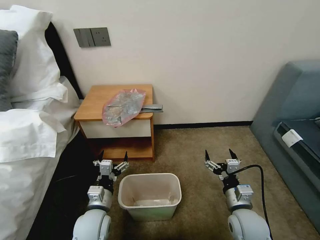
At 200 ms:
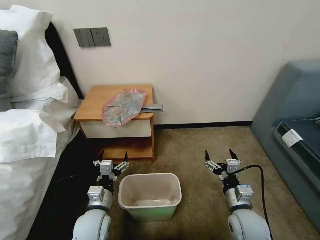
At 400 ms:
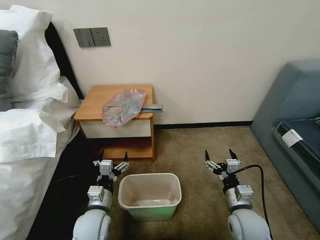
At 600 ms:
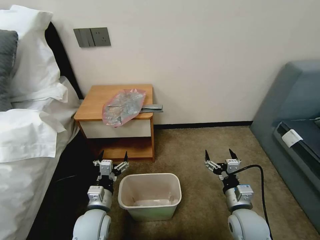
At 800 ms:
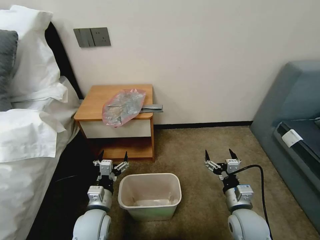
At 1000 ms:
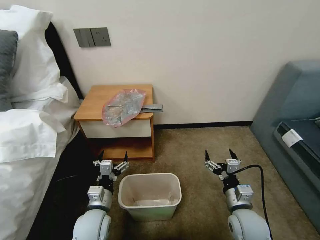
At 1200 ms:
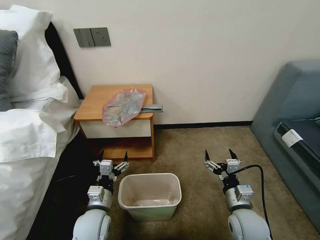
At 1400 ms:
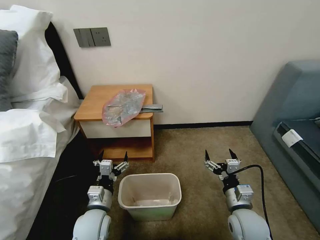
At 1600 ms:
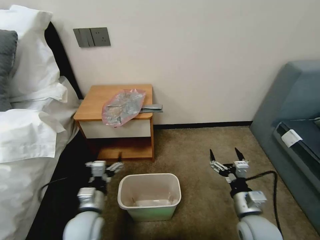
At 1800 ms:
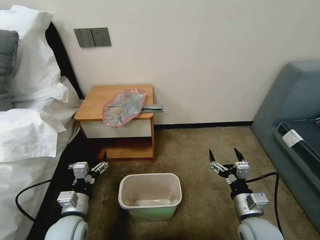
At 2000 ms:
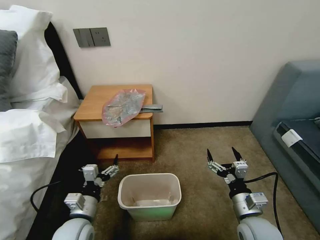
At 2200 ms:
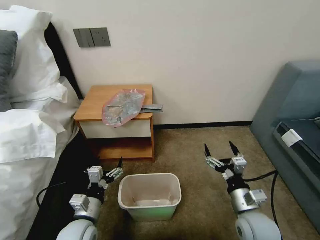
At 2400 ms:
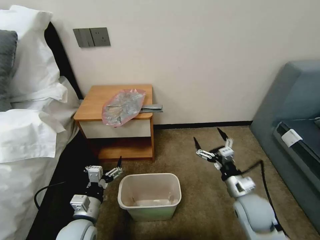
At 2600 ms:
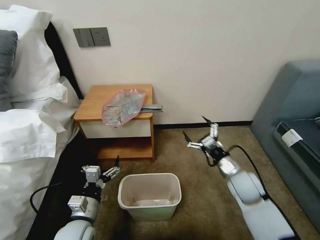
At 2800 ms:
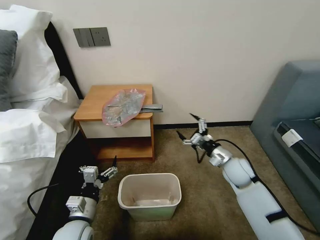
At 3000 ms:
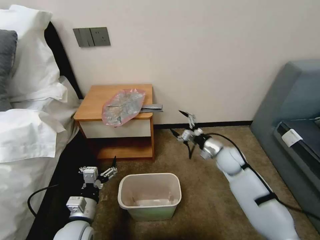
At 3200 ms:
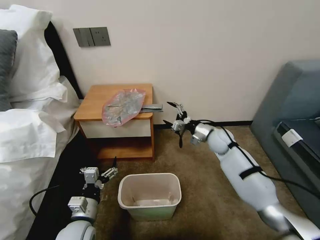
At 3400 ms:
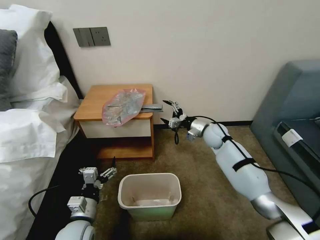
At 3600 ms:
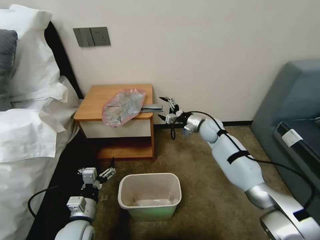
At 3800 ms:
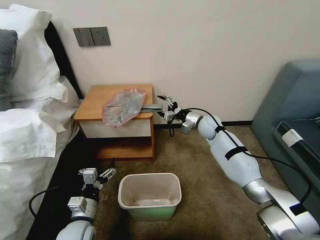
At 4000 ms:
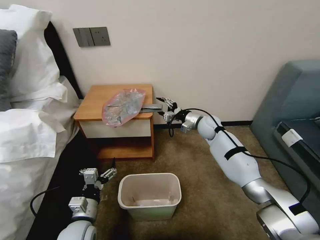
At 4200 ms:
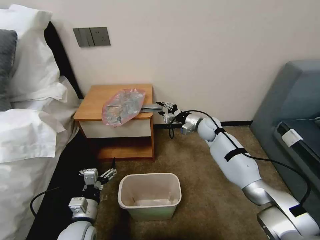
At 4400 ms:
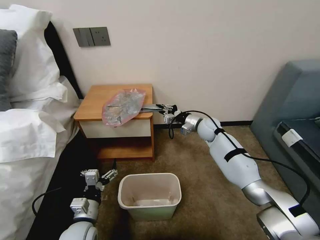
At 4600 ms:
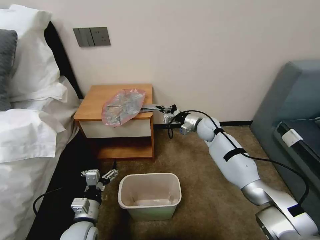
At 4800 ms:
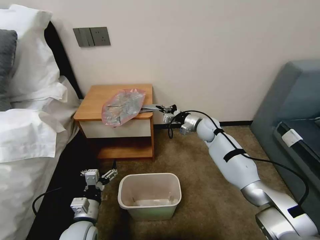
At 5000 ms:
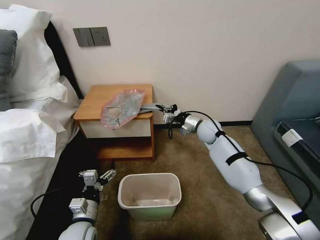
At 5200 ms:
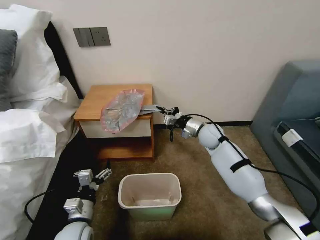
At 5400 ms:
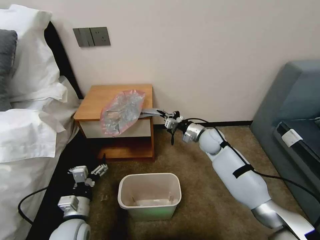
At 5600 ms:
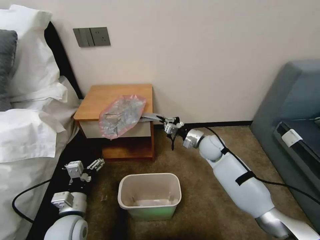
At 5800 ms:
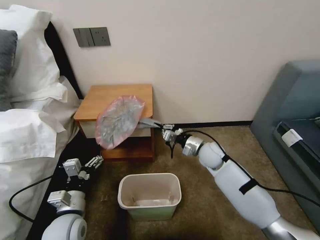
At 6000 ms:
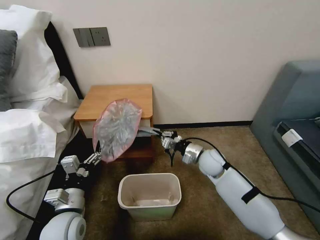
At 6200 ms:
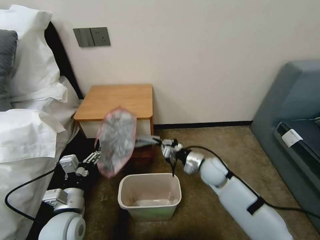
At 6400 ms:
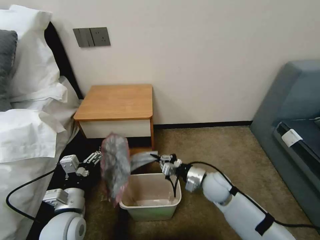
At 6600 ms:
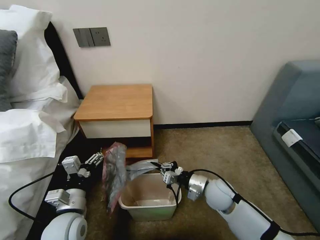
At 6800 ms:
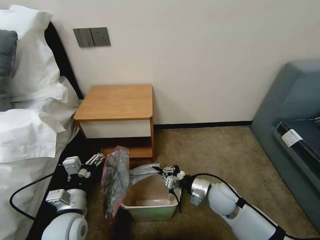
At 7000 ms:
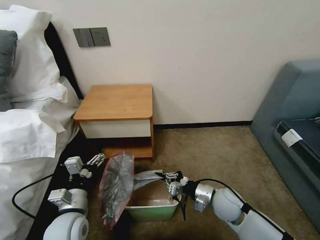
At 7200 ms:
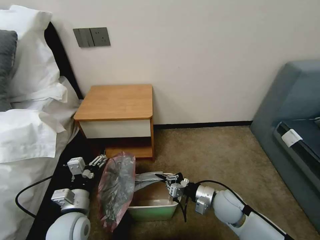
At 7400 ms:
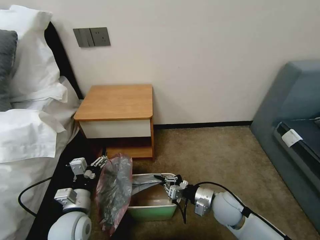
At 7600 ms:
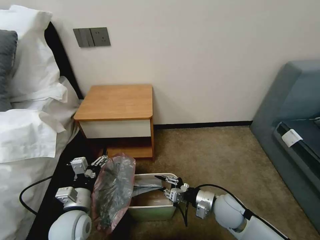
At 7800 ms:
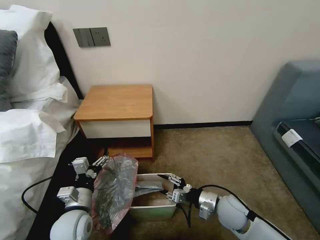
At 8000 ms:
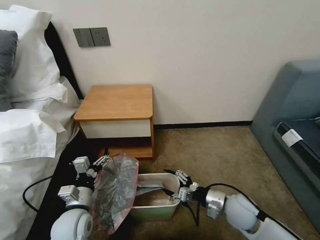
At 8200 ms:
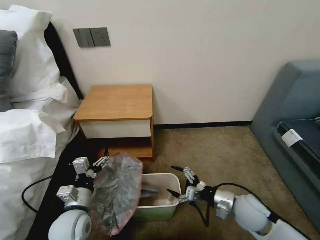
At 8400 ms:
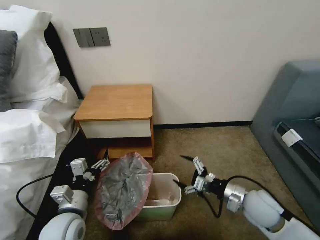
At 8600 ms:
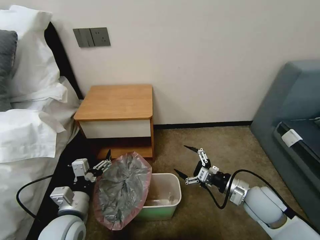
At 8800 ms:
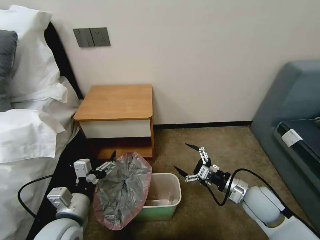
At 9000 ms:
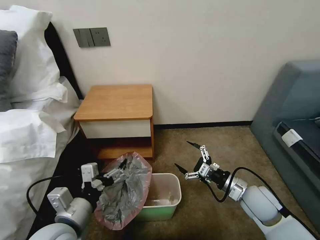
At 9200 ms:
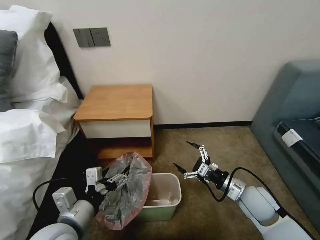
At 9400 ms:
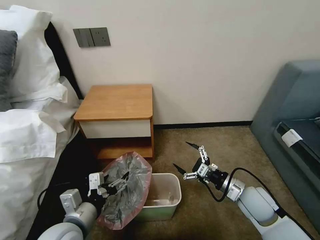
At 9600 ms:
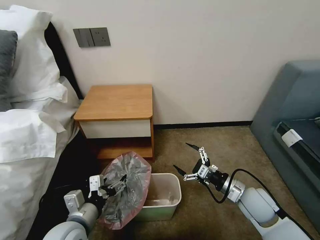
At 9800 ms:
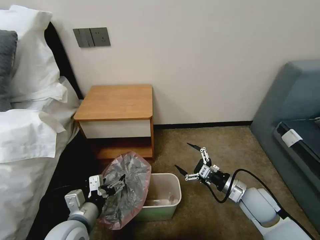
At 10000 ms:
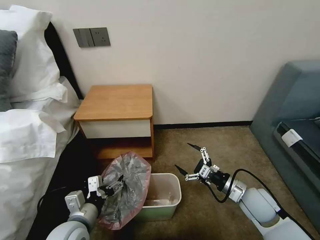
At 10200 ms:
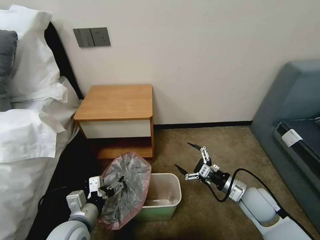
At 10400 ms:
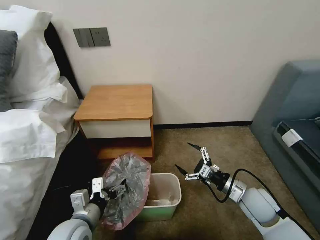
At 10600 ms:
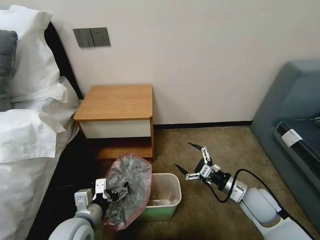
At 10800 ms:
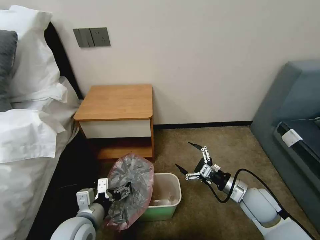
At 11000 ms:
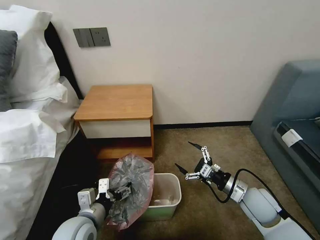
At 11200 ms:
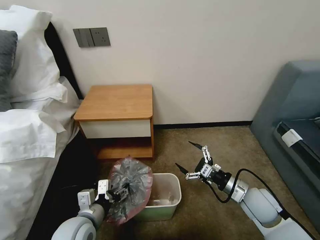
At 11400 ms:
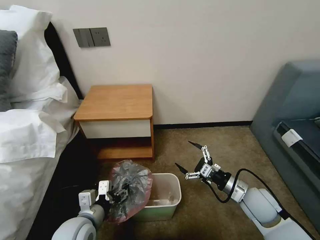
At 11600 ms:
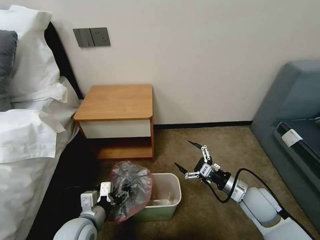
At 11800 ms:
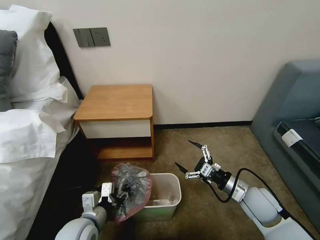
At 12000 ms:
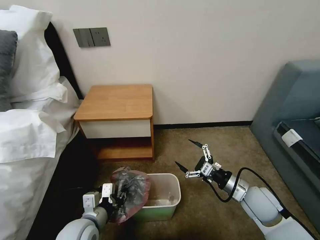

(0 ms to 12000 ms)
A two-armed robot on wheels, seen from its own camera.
Task of the whole recording: Pick up the garbage bag from the table and place it over the trash can.
1600 ms - 3000 ms: The right gripper goes roughly 25 cm forward.
3000 ms - 4400 ms: The right gripper heads forward, covering about 10 cm, and closes up.
4400 ms - 6000 ms: The right gripper goes about 15 cm backward; the left gripper is displaced upward by some 5 cm.
6000 ms - 7600 ms: The right gripper goes about 15 cm backward.
7600 ms - 9000 ms: The right gripper heads to the right and upward, covering some 10 cm, and opens its fingers; the left gripper is displaced upward and backward by roughly 10 cm.
9000 ms - 10400 ms: The left gripper shifts approximately 5 cm downward.
10400 ms - 12000 ms: The left gripper closes up.

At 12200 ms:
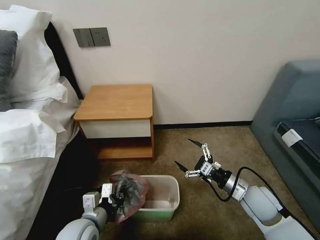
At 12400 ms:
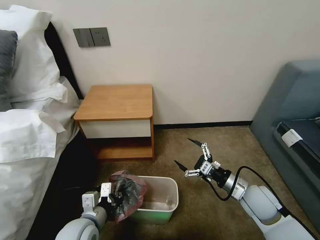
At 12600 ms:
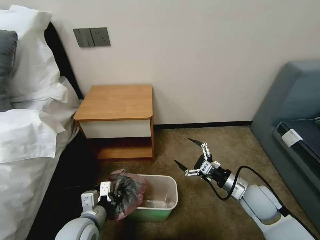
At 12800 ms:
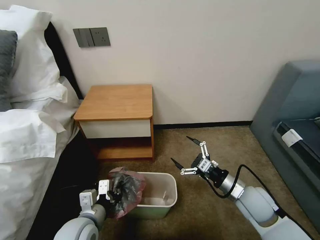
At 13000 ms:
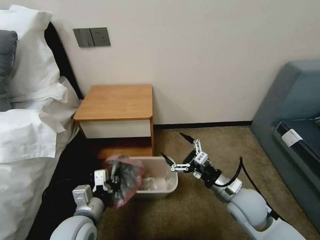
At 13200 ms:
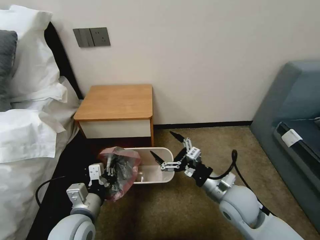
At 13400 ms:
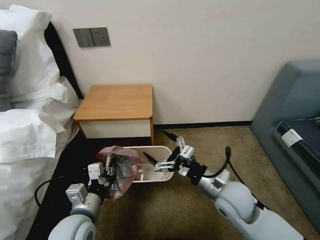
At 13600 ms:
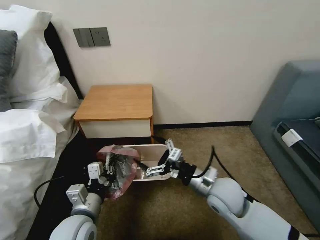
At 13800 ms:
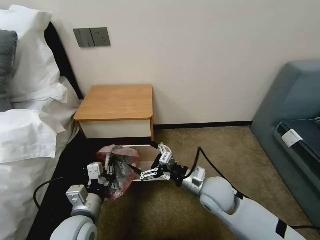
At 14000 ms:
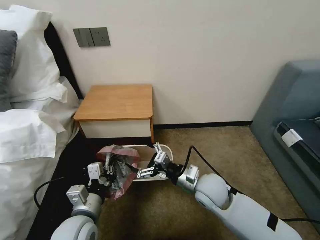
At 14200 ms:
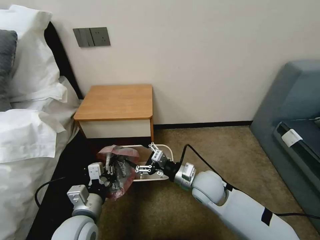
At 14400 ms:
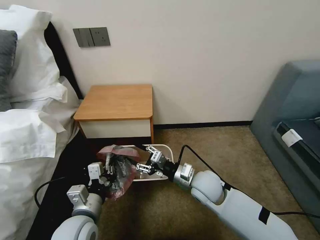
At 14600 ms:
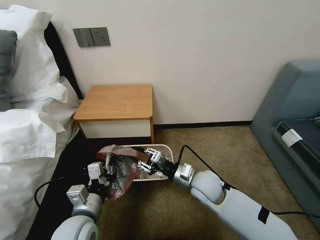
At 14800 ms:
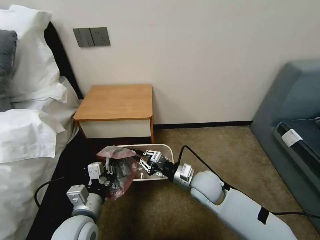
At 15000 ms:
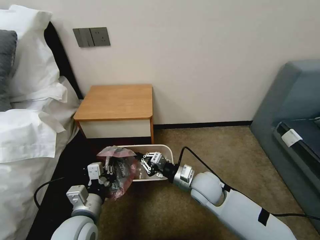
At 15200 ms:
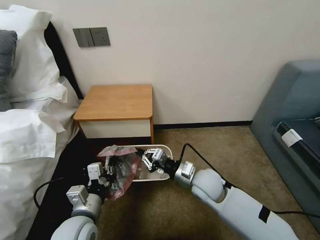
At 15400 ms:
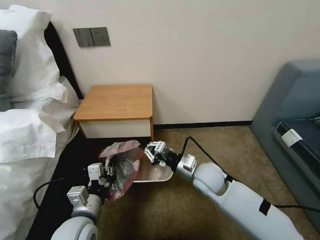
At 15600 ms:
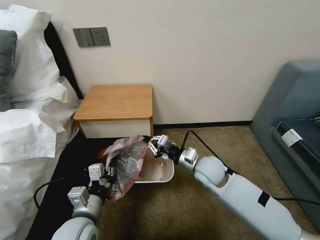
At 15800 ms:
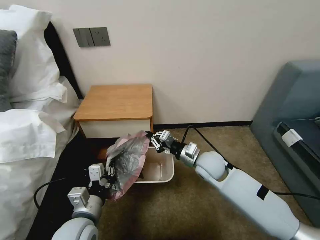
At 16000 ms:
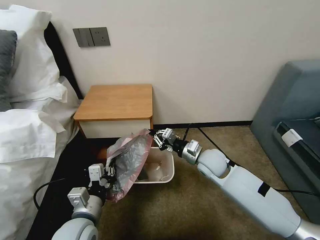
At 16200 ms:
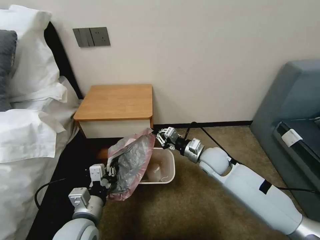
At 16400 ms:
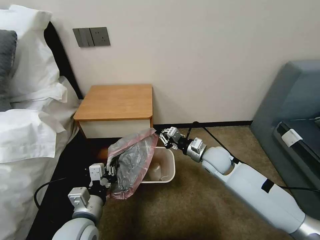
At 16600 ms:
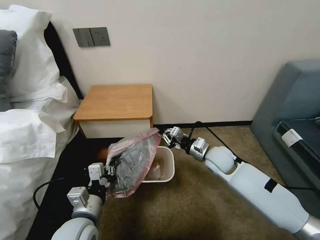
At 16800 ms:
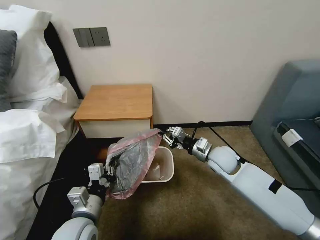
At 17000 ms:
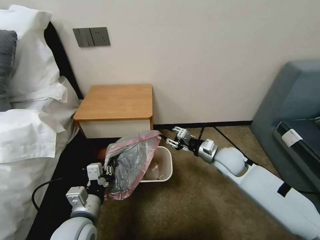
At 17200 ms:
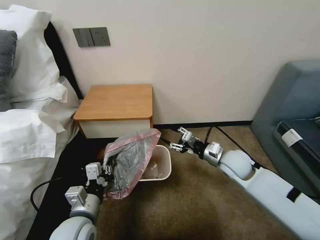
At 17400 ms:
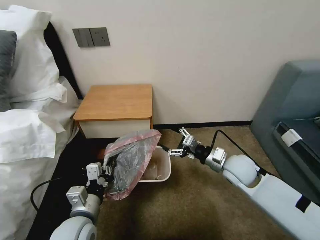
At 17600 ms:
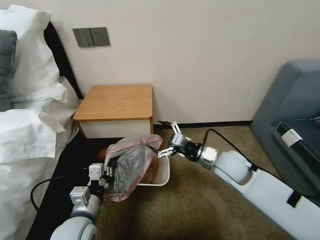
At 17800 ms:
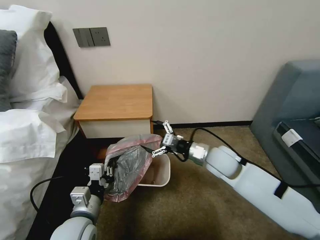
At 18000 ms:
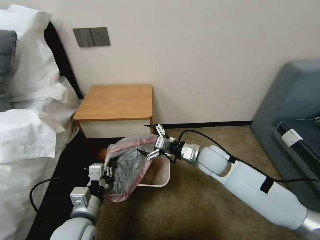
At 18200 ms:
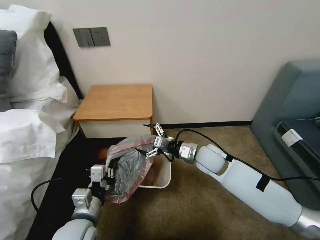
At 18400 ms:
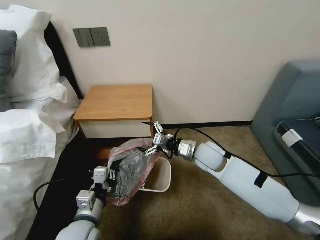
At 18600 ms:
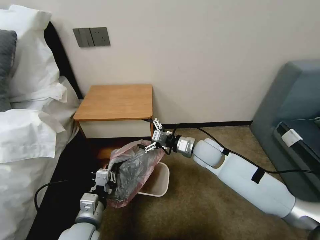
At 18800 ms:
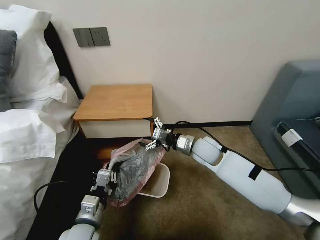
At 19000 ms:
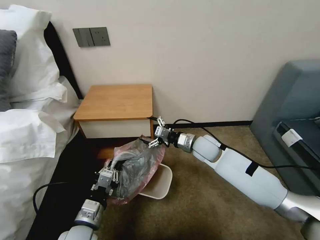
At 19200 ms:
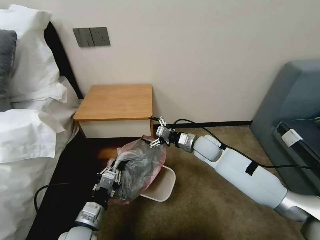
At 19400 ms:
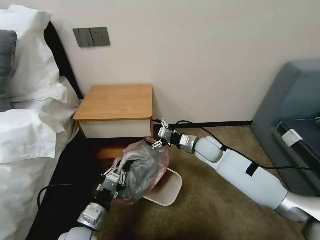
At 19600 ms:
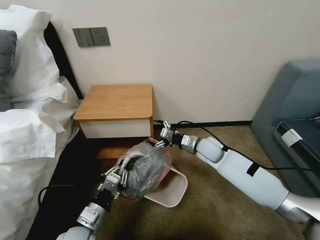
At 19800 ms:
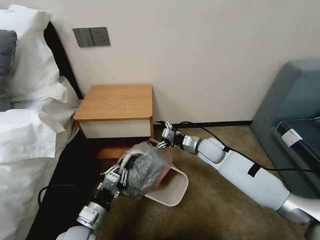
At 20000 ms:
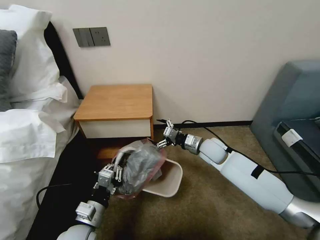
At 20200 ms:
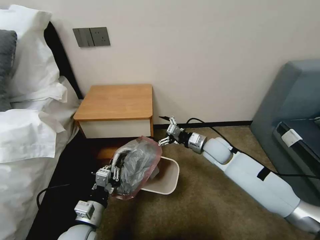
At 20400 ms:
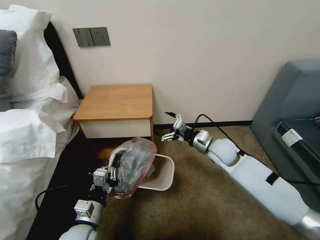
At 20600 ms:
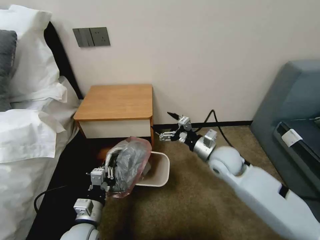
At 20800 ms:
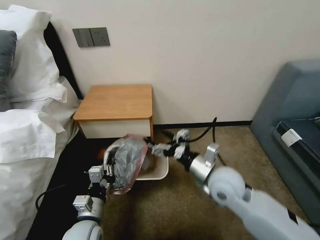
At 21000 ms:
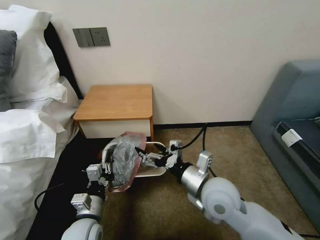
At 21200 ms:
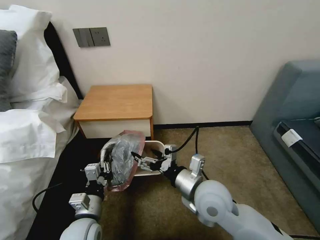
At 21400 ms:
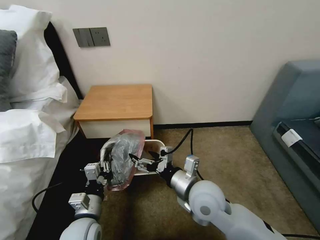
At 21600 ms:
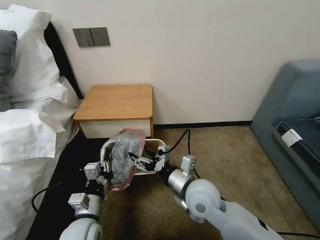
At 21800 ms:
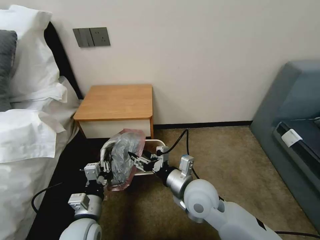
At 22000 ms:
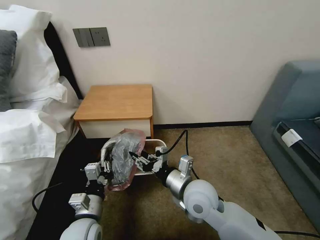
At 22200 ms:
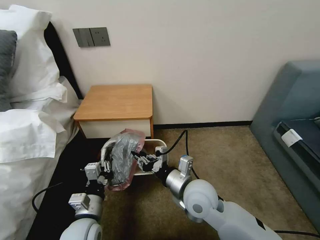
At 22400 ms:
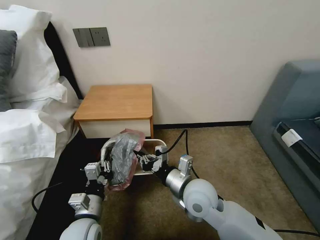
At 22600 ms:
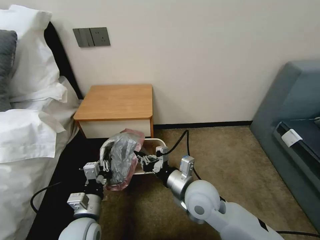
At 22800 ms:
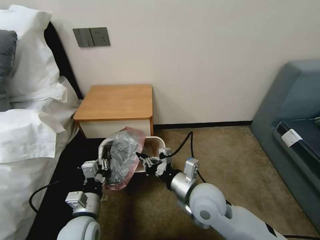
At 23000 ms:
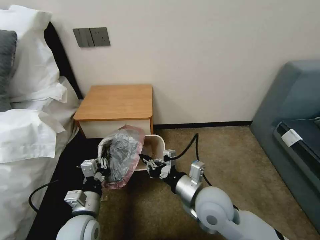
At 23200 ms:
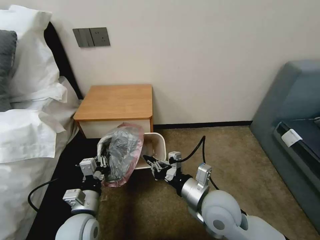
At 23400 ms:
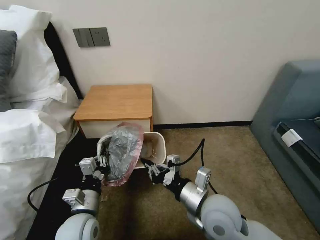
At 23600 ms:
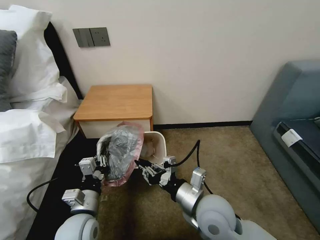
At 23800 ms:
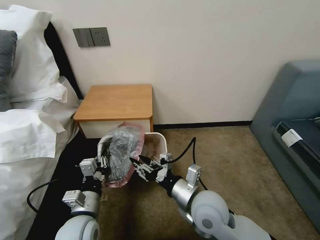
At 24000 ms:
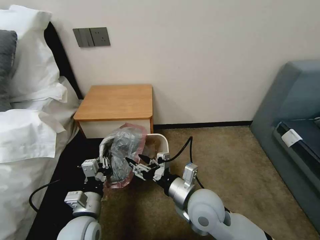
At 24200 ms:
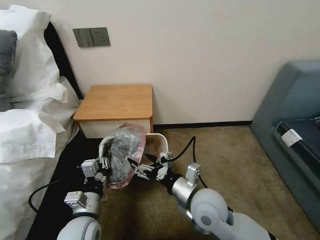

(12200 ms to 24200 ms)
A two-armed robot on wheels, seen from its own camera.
Task of the whole recording: Pick up the garbage bag from the table and place it over the trash can.
12200 ms - 13800 ms: The right gripper shifts roughly 15 cm to the left.
13800 ms - 15200 ms: The right gripper closes up.
15200 ms - 16600 ms: The right gripper is displaced forward and to the right by roughly 10 cm.
16600 ms - 18200 ms: The right gripper opens its fingers.
18200 ms - 19800 ms: The right gripper moves forward, roughly 5 cm.
19800 ms - 21200 ms: The right gripper is displaced backward by some 20 cm.
21200 ms - 22600 ms: The right gripper closes its fingers.
22600 ms - 24200 ms: The right gripper opens.
